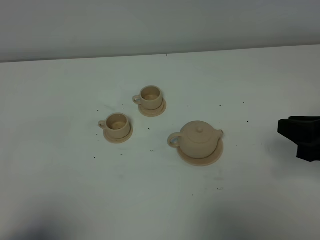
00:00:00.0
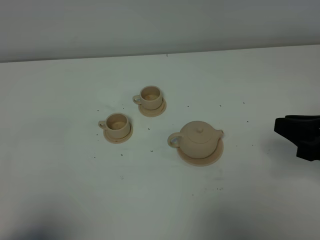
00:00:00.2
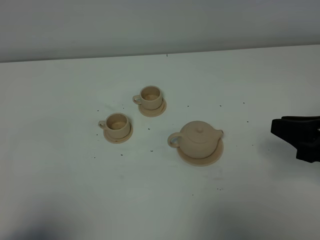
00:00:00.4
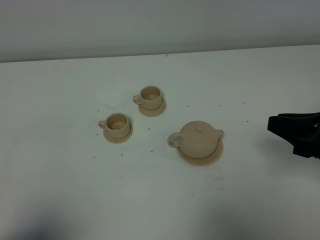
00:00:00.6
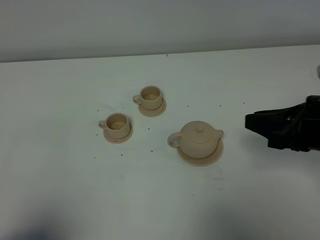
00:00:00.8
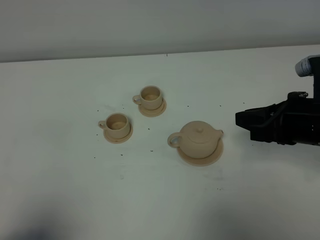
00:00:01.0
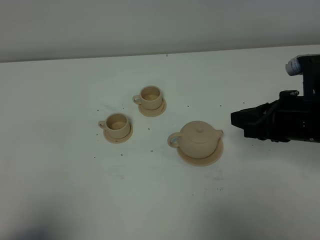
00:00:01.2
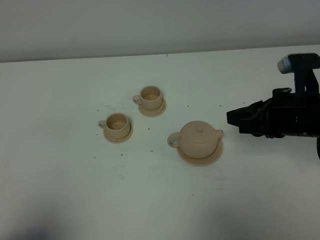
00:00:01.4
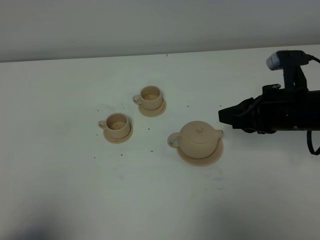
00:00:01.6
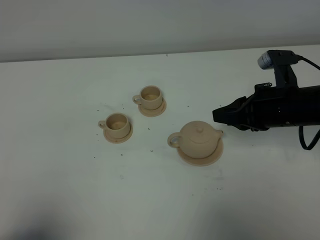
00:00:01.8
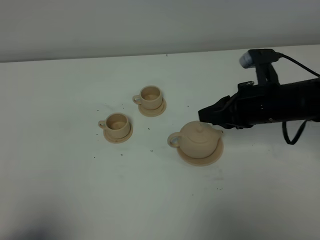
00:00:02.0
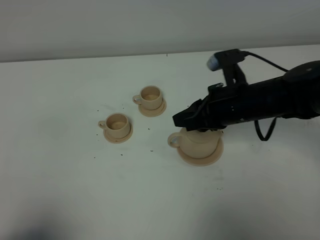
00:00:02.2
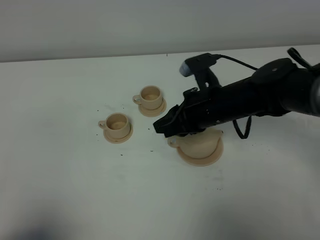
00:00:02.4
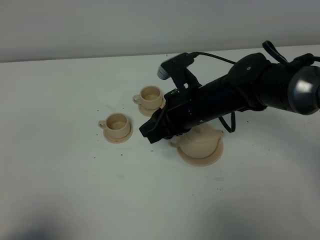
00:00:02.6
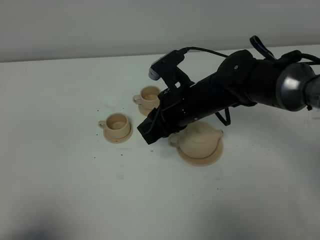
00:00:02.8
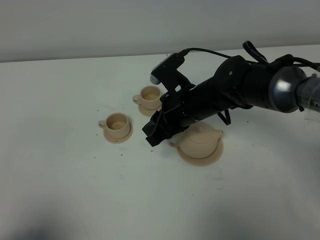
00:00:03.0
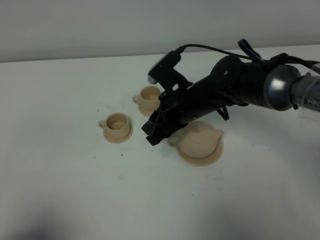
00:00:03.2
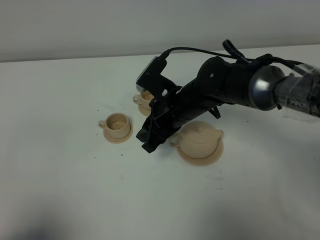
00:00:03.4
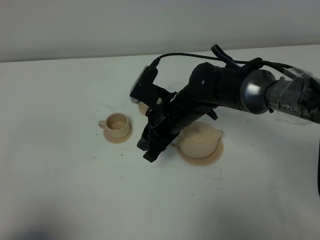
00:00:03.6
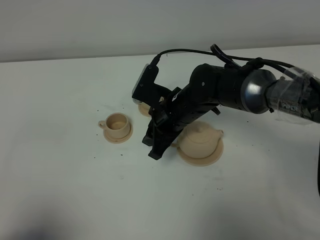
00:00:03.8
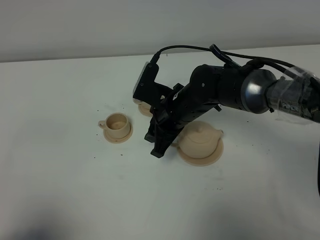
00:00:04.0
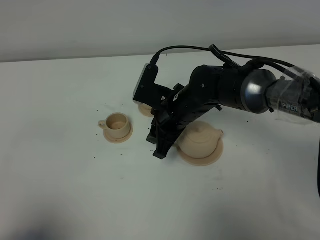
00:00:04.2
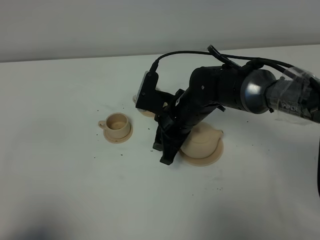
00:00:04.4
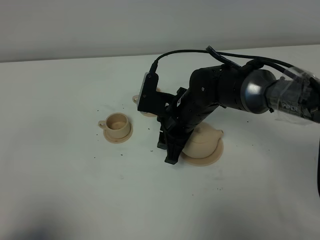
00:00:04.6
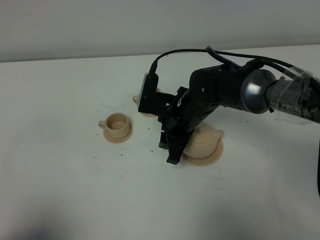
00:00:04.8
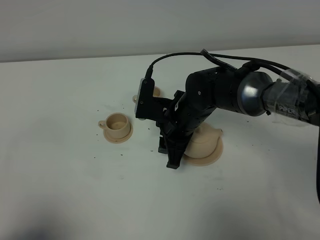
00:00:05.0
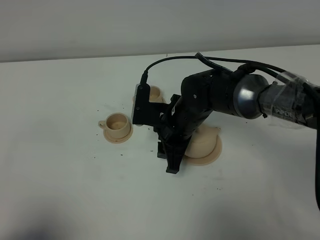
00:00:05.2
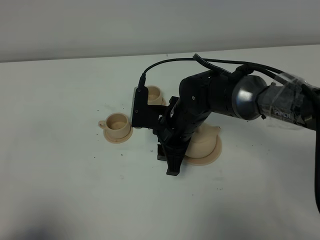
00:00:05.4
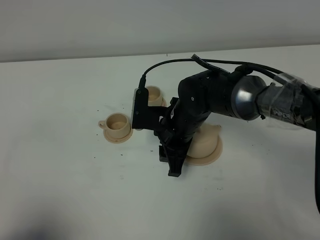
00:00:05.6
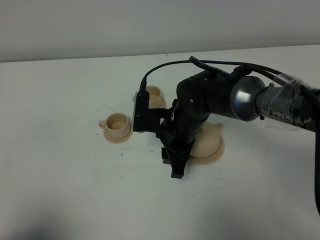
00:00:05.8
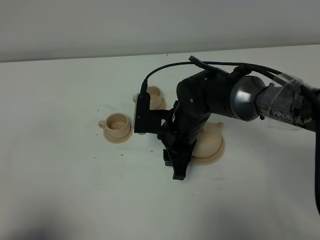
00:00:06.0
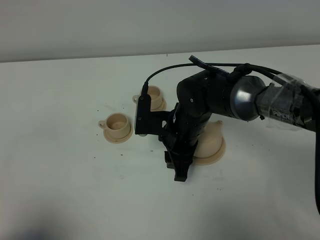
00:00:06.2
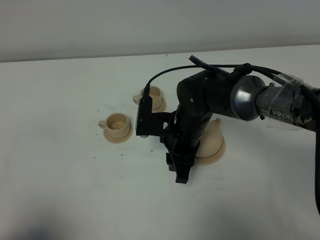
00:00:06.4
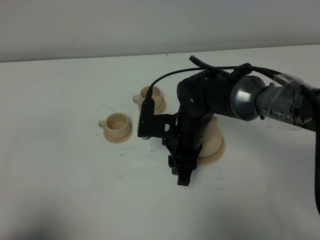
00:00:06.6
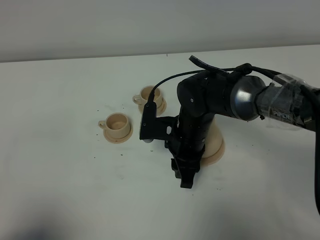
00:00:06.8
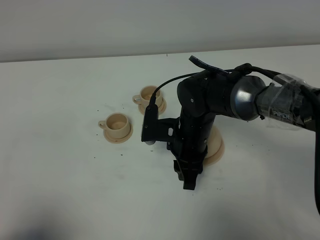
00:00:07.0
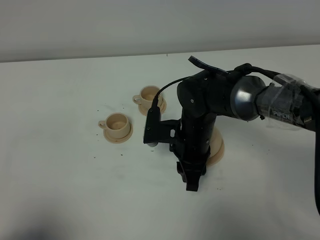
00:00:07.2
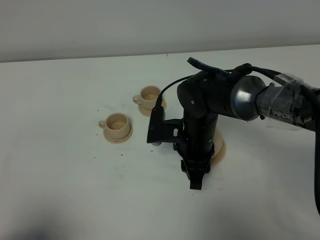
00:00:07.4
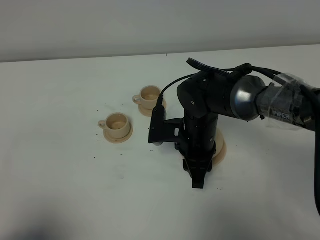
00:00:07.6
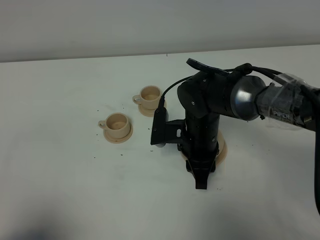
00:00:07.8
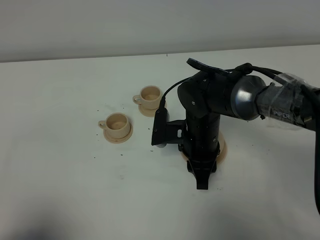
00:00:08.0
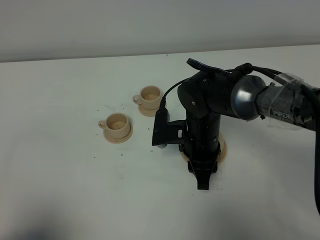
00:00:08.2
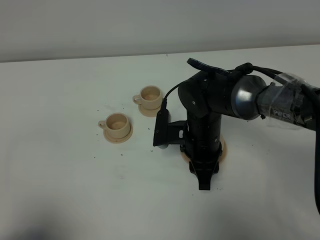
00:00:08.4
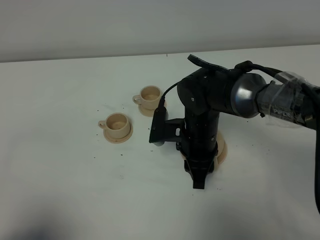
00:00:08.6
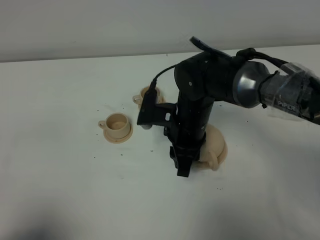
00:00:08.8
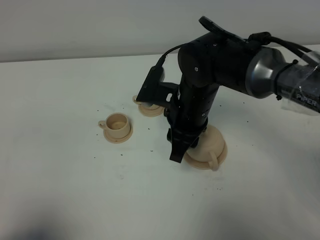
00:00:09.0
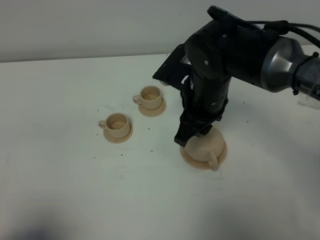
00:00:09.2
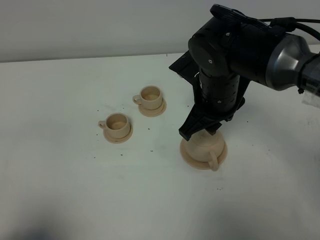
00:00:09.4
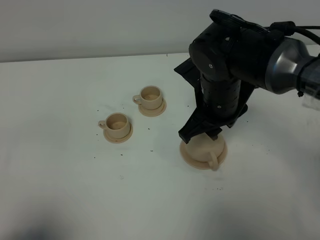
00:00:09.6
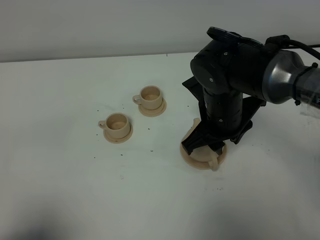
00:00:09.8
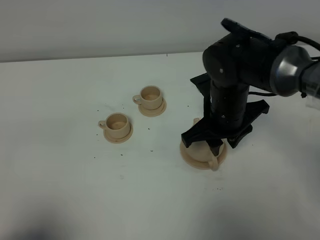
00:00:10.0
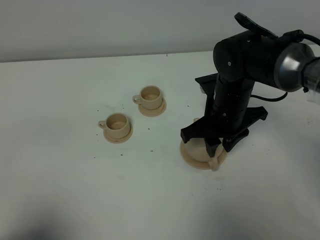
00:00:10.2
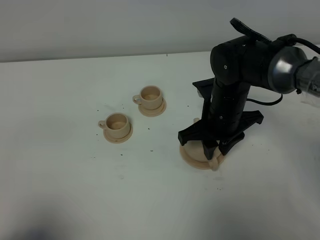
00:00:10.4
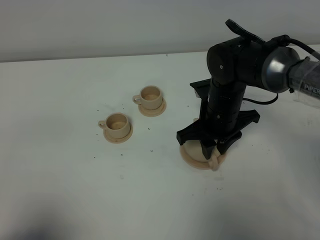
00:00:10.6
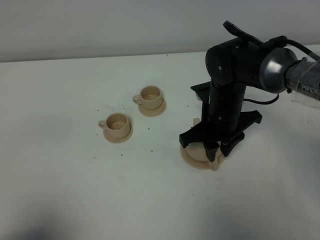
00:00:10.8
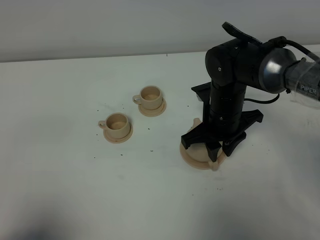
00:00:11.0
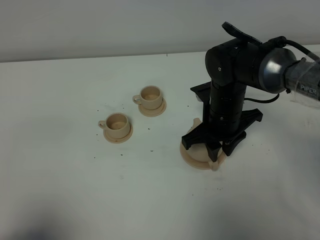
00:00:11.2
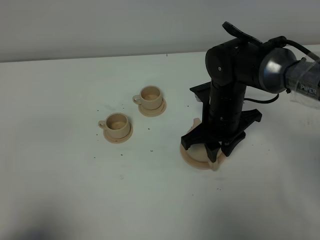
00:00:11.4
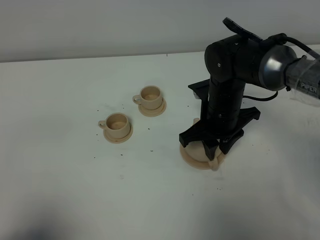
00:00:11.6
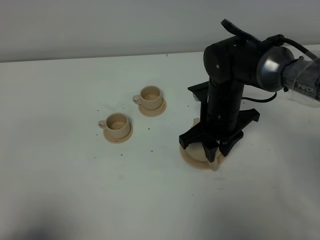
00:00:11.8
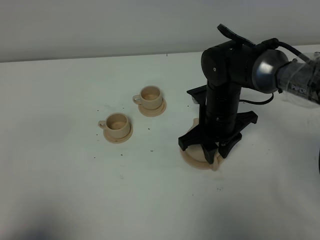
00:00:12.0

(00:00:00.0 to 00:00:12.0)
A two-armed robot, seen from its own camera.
Task of the whole recording: grasp the brown teapot and pour the tea into the two brown teacups one by one, put the brown teapot back in its original place.
00:00:00.0 - 00:00:01.6: The right gripper heads forward and to the left, covering about 10 cm.
00:00:01.6 - 00:00:03.0: The right gripper goes approximately 15 cm to the left.
00:00:04.4 - 00:00:06.0: The grippers stay close to where they were, moving slightly.
00:00:06.0 - 00:00:07.6: The grippers make only small movements.
00:00:07.6 - 00:00:09.0: The right gripper goes about 10 cm upward.
00:00:09.0 - 00:00:10.4: The right gripper goes some 5 cm to the right.
00:00:10.4 - 00:00:12.0: The grippers stay close to where they were, moving slightly.

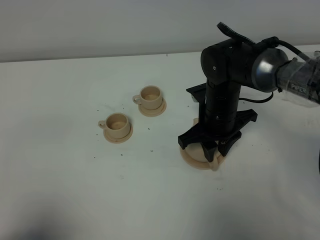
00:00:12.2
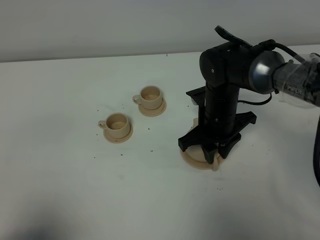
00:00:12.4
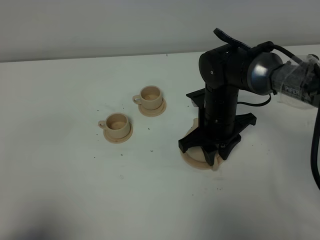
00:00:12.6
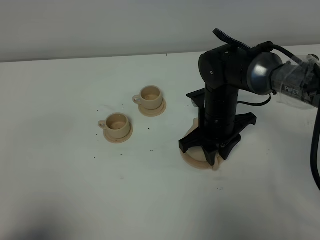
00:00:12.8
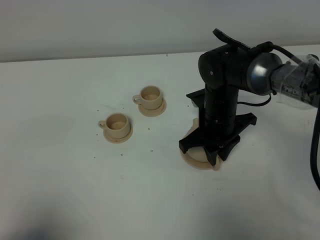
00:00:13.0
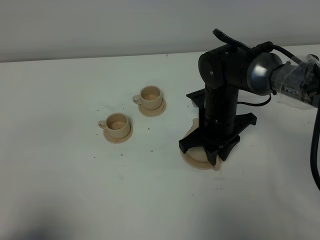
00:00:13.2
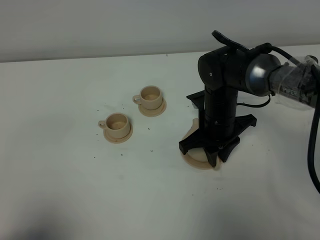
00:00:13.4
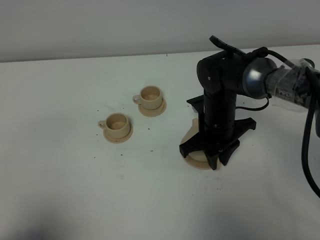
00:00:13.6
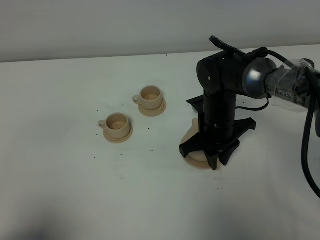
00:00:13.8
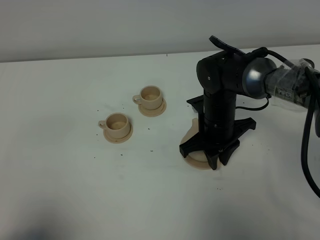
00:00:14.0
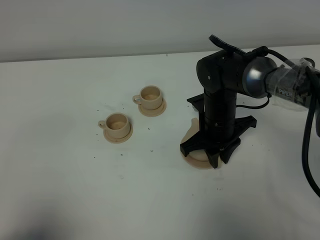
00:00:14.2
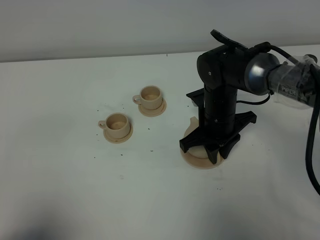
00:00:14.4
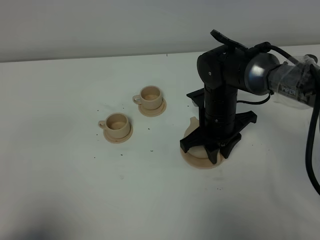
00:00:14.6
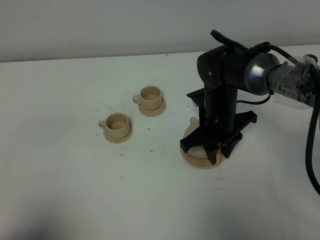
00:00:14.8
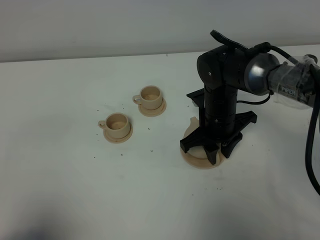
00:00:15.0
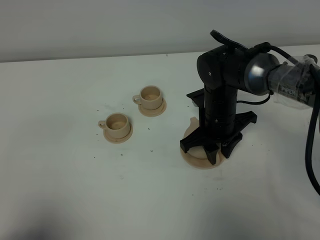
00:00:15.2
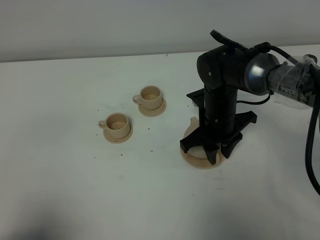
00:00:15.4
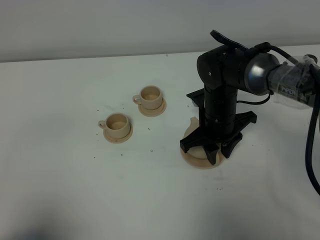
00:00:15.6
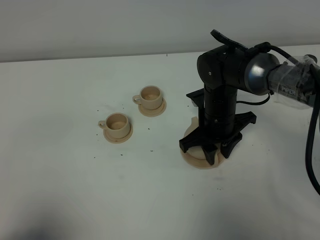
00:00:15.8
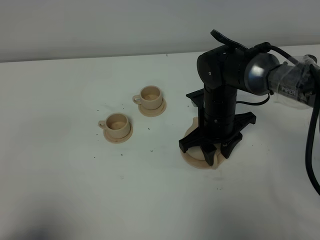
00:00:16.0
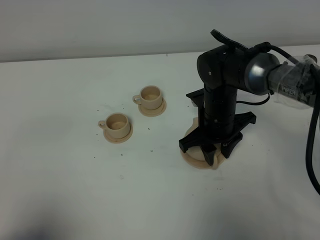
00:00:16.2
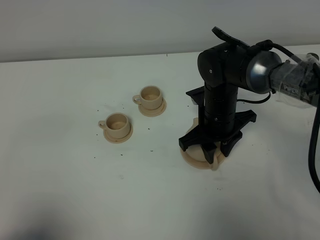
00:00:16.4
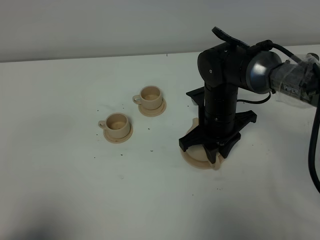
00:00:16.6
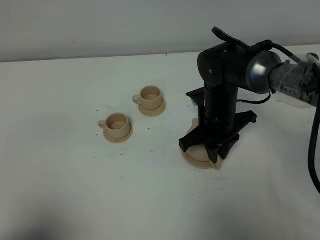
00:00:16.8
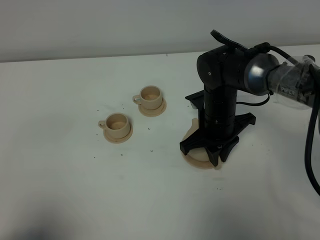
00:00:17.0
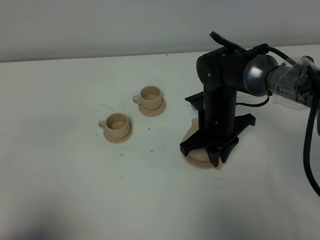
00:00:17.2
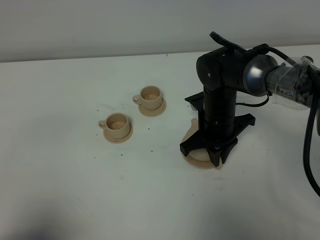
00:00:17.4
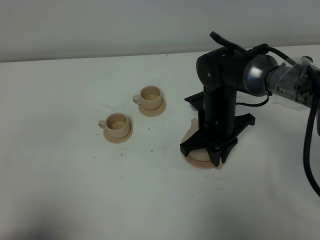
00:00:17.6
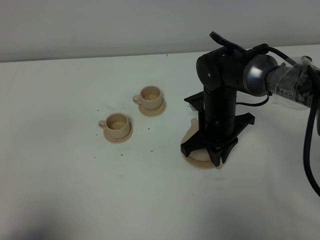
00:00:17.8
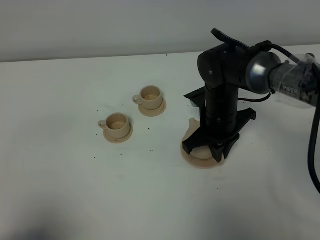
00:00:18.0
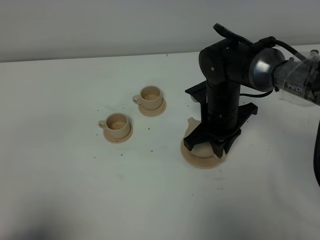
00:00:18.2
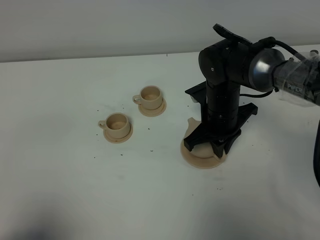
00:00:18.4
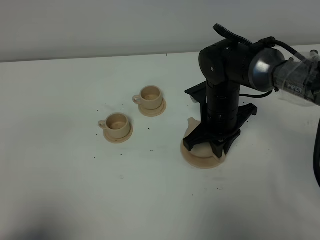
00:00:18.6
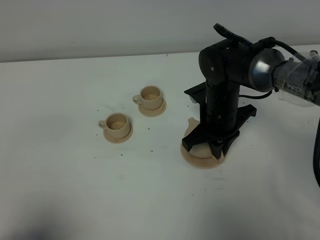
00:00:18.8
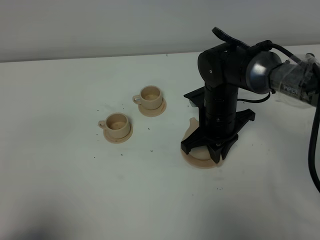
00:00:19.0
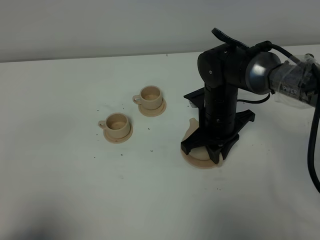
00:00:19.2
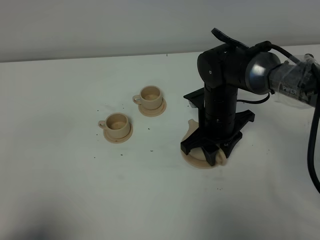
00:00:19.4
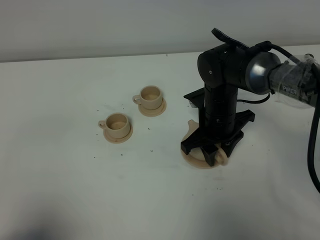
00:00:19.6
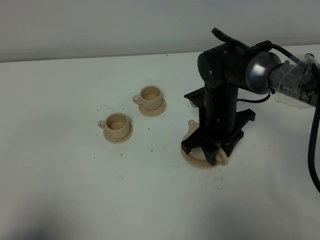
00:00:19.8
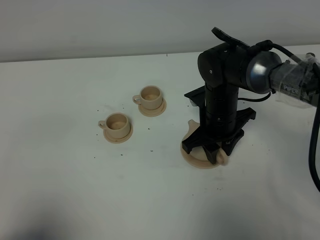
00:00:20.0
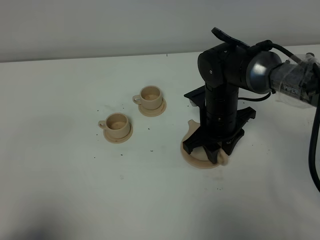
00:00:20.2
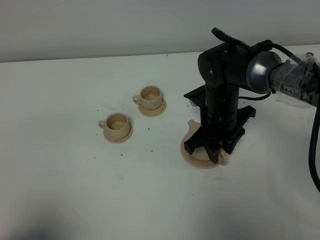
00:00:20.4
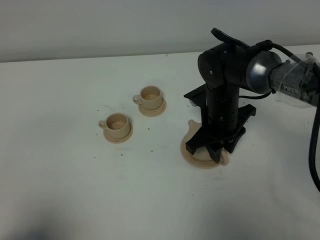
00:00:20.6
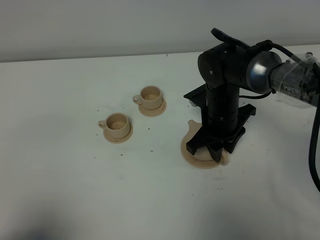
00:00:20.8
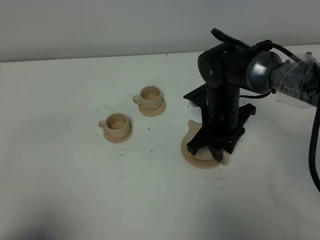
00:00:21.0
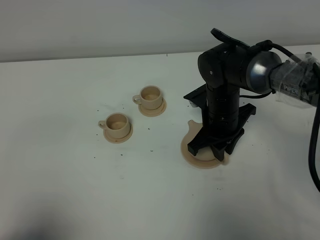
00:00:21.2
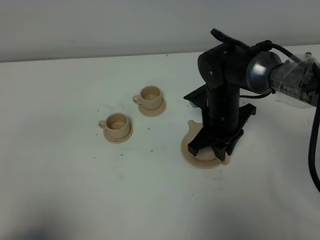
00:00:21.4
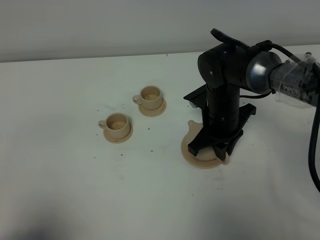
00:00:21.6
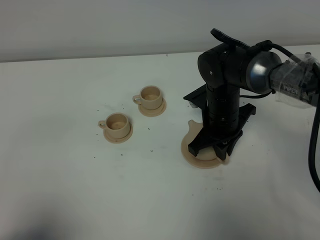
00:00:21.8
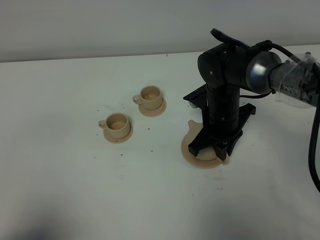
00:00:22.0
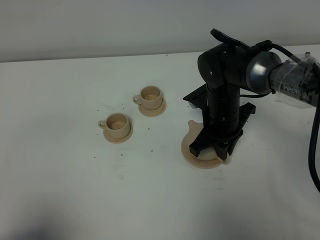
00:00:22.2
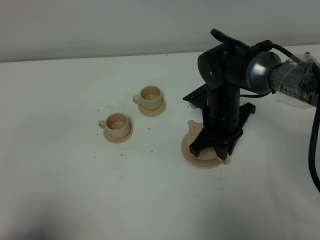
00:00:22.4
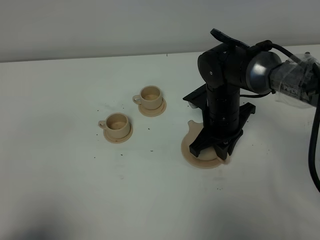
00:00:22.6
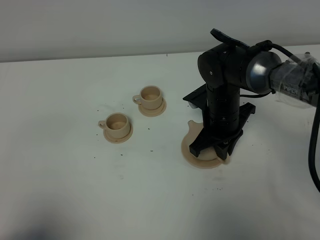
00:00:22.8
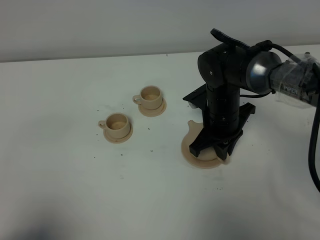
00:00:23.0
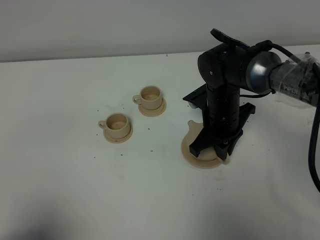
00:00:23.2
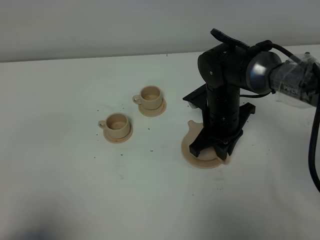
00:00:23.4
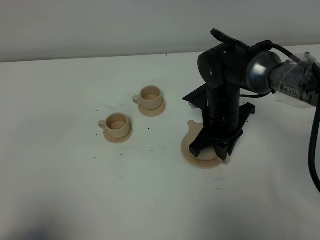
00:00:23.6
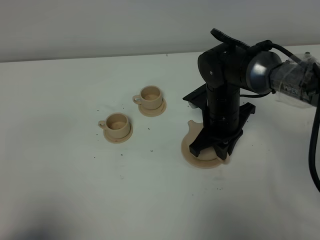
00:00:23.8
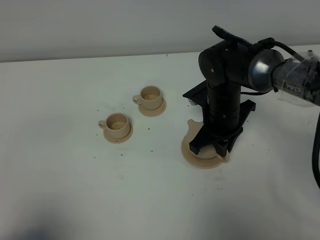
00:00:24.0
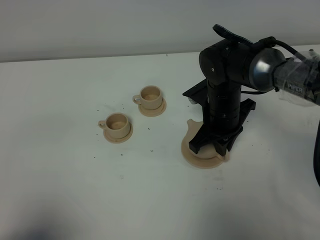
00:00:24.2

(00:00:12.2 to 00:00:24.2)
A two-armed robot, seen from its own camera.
Task of the whole recording: grasp the brown teapot and pour the tea into the two brown teacups one by one, put the brown teapot back in its original place.
00:00:12.2 - 00:00:13.8: There are only small adjustments of the grippers.
00:00:13.8 - 00:00:15.2: The two grippers keep their place.
00:00:15.2 - 00:00:16.6: The two grippers keep their place.
00:00:16.6 - 00:00:18.2: The right gripper closes its fingers.
00:00:18.2 - 00:00:19.8: The right gripper opens.
00:00:19.8 - 00:00:21.2: The right gripper closes.
00:00:21.2 - 00:00:24.2: Both grippers stay put.
